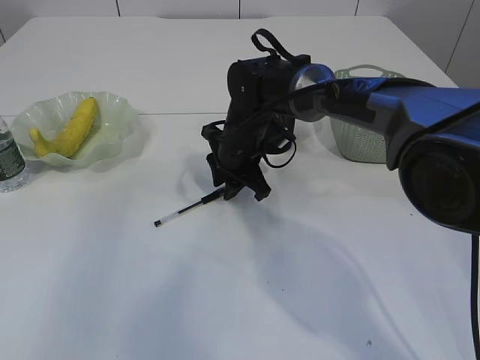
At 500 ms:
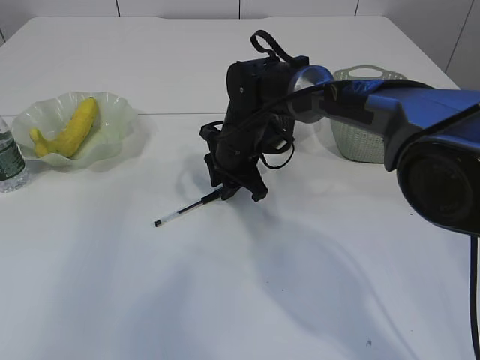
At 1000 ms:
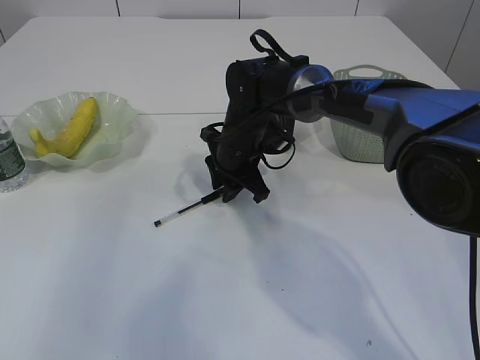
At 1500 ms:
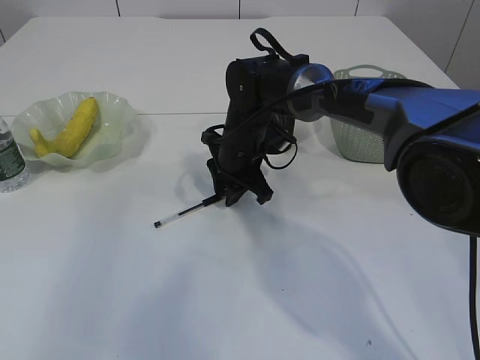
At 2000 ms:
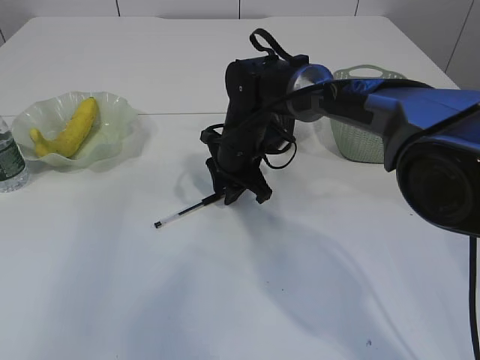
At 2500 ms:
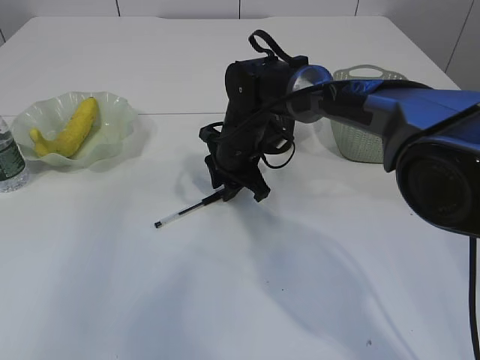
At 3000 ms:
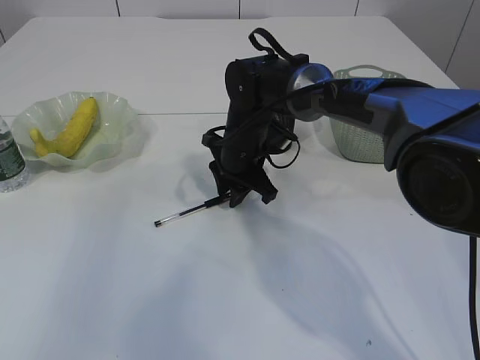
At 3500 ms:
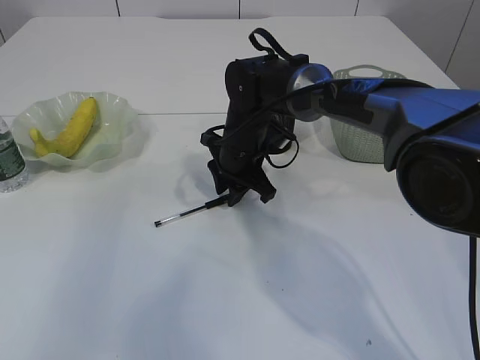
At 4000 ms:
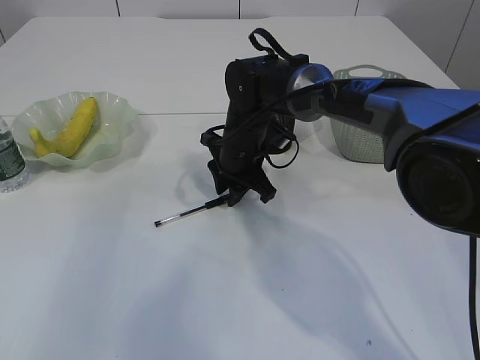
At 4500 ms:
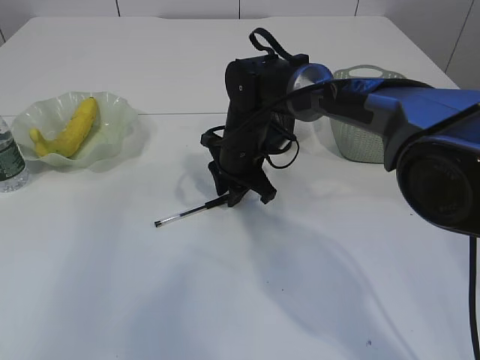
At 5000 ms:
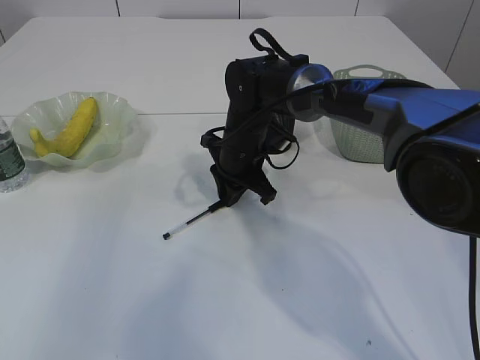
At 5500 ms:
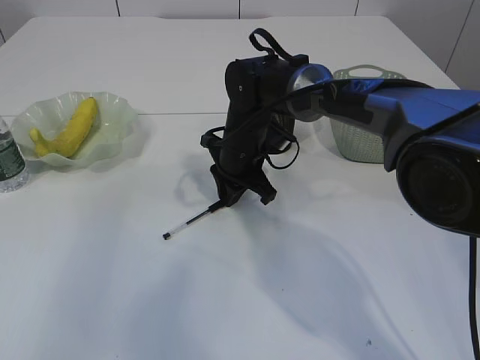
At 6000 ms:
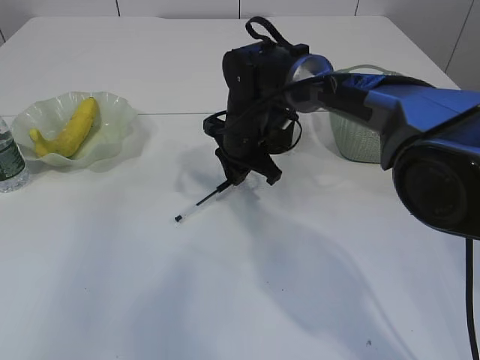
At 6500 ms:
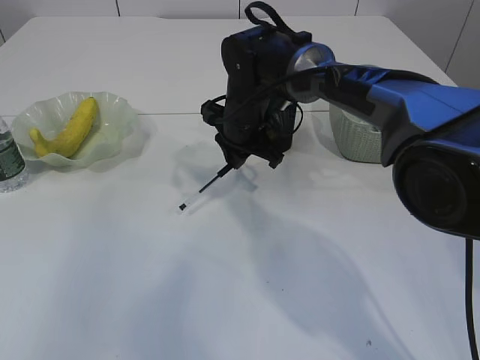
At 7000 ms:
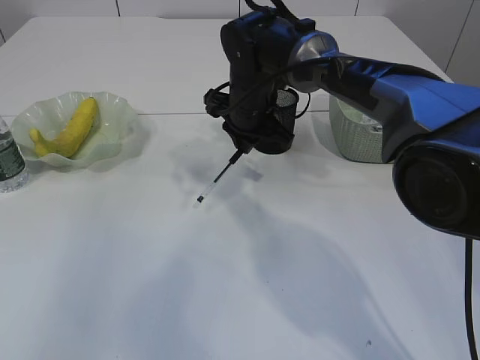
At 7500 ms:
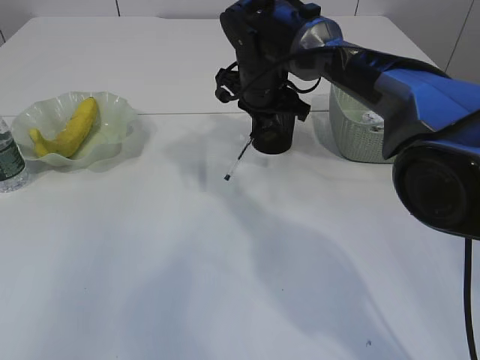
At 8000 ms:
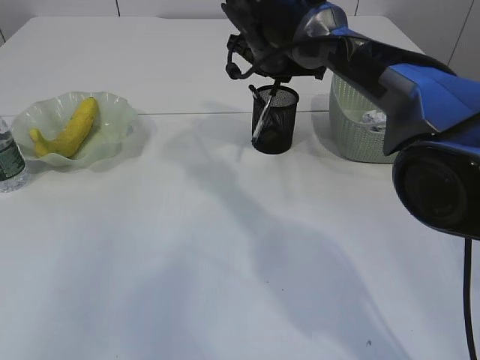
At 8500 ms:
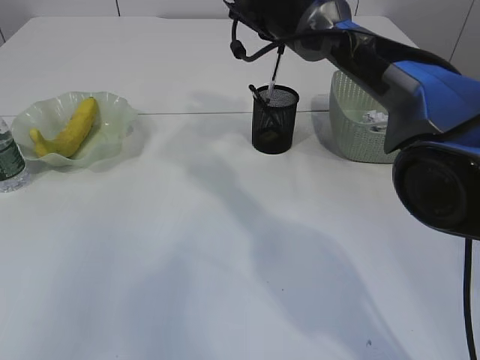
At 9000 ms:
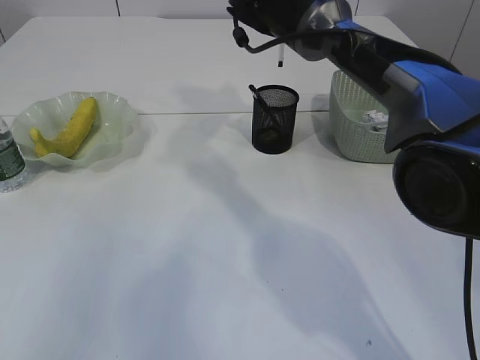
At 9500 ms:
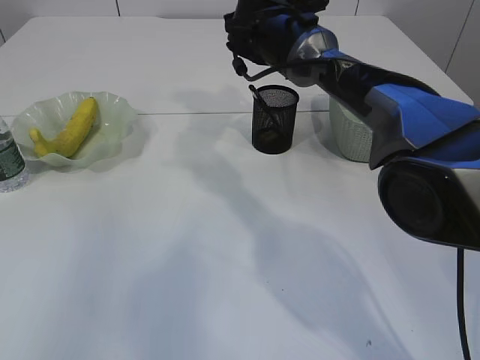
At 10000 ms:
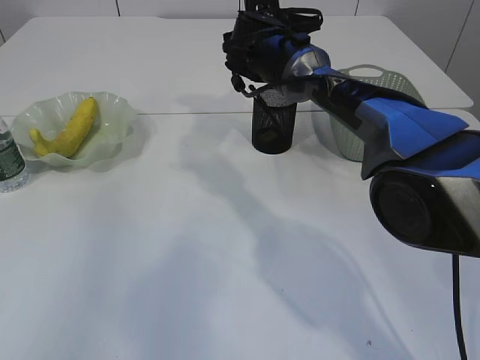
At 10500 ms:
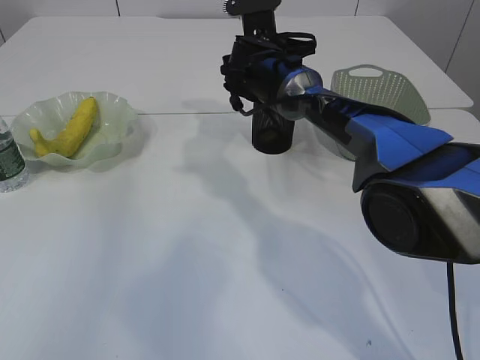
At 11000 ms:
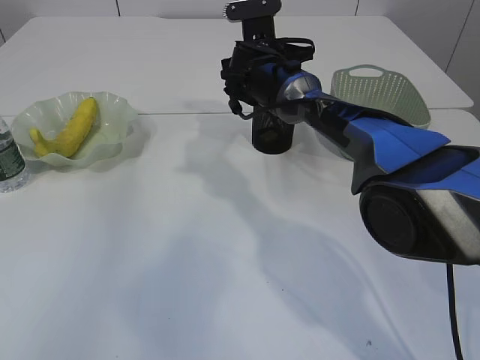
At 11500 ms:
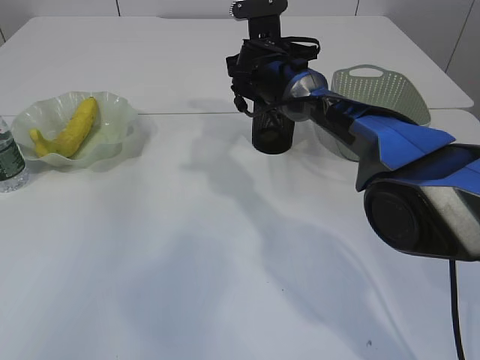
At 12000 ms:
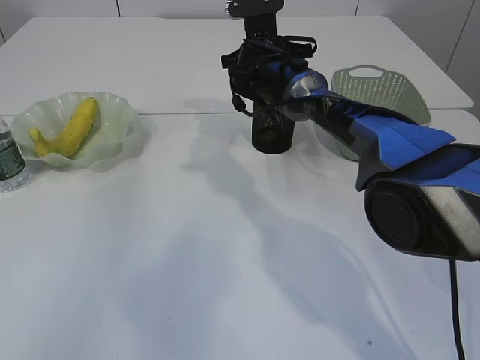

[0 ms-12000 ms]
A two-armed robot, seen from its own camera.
Step, 0 ms to 6500 ms: Pick up the pen with right arm.
0 ms to 2000 ms: Both grippers stay about where they are.
2000 ms to 4000 ms: The two grippers keep their place.
4000 ms to 6000 ms: The grippers move only a little.
6000 ms to 8000 ms: The right gripper moves upward, some 10 cm.
10000 ms to 12000 ms: The grippers move only a little.

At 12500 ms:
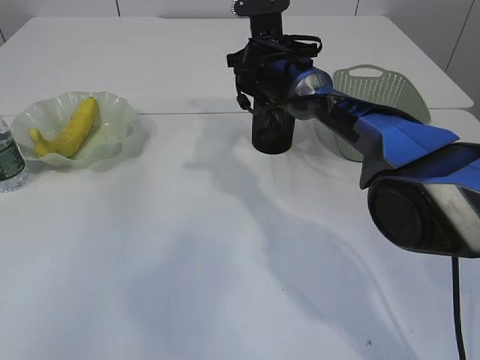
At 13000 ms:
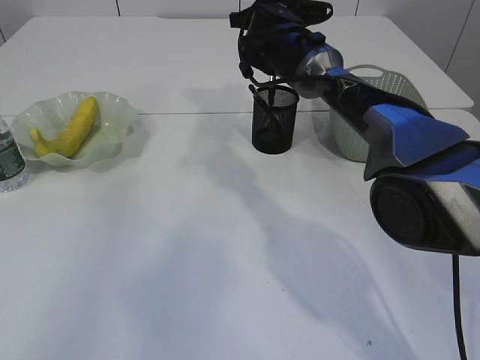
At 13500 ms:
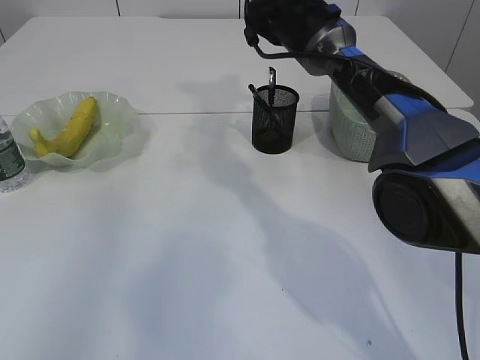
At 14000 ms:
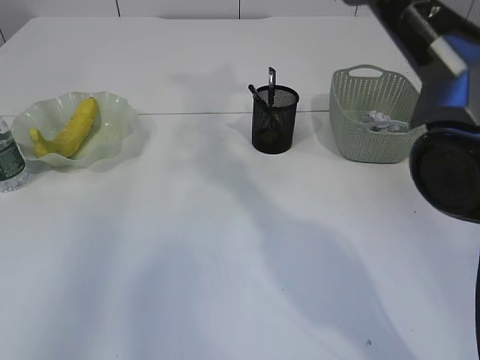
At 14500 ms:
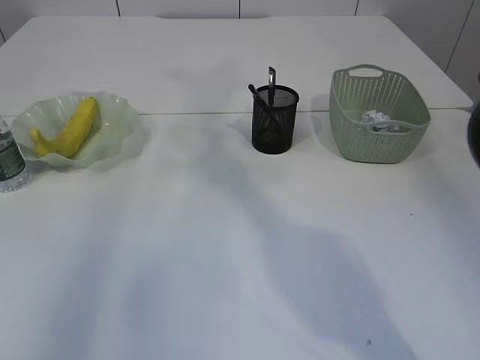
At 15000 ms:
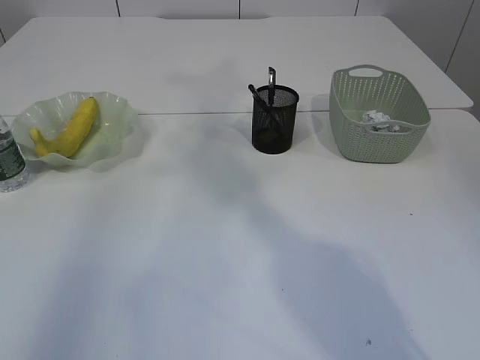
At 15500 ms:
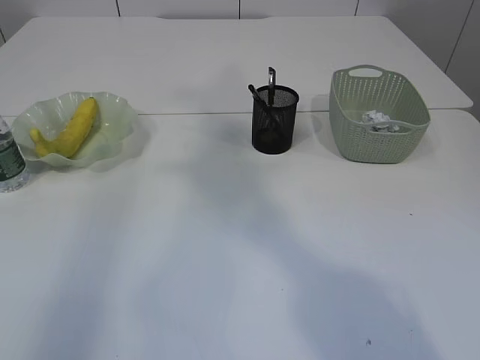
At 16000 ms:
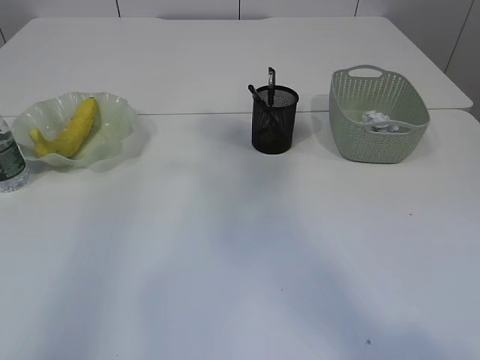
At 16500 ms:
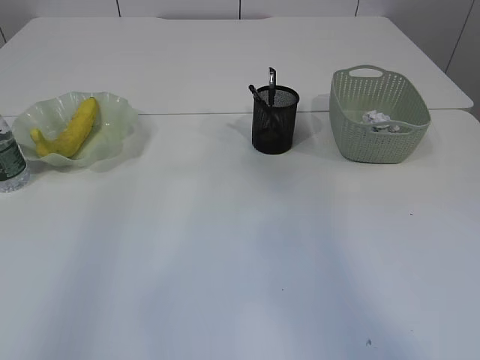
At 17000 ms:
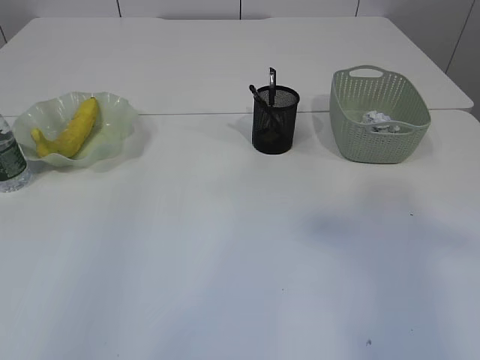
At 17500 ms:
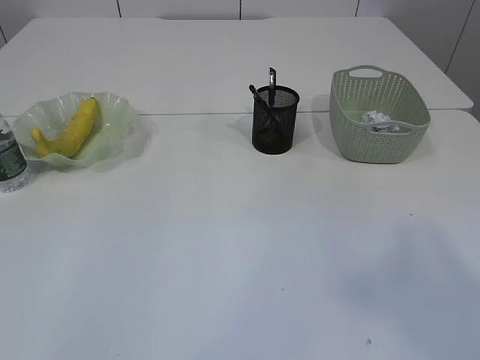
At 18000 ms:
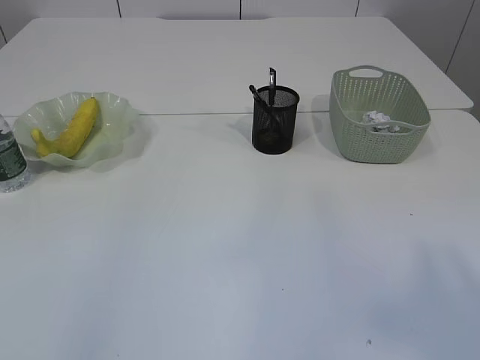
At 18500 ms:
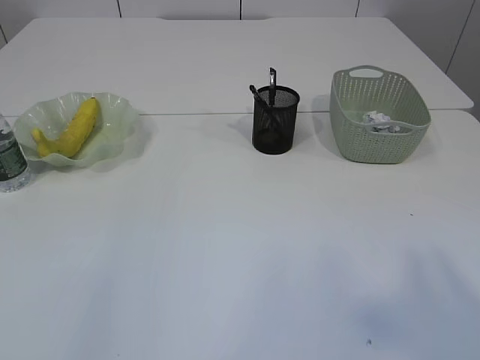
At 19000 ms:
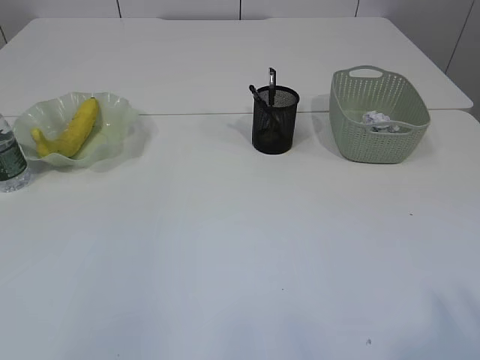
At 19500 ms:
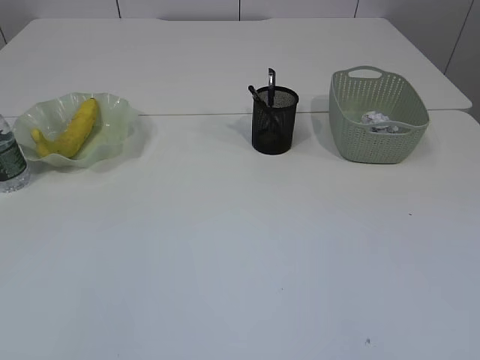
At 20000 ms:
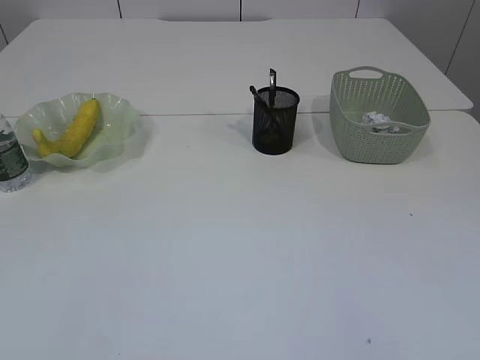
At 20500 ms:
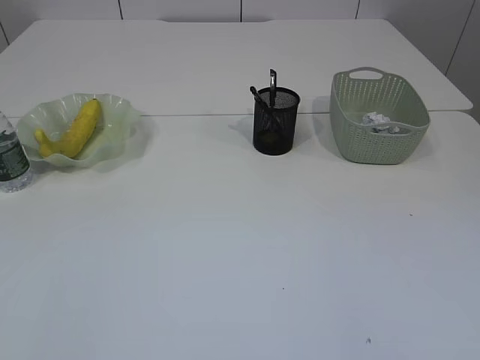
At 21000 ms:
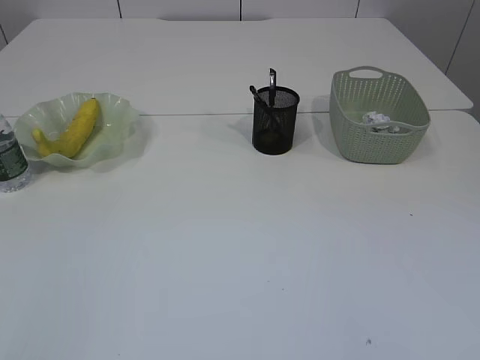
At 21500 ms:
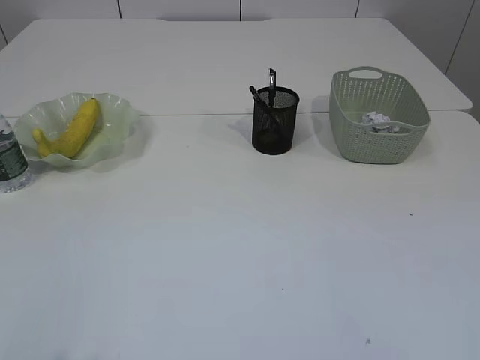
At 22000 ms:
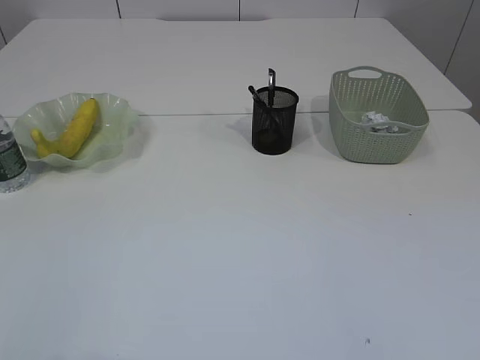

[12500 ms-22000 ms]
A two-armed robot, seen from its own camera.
12500 ms to 14500 ms: The left gripper closes, while the right gripper heads upward, covering some 30 cm.
14500 ms to 16500 ms: The right gripper heads backward, upward and to the right, covering roughly 40 cm.
16500 ms to 18000 ms: The right gripper goes roughly 20 cm downward and backward; the left gripper travels backward and upward by about 15 cm.

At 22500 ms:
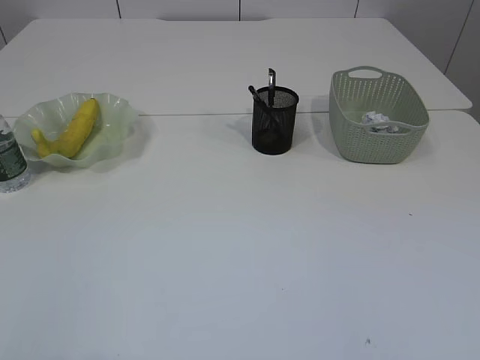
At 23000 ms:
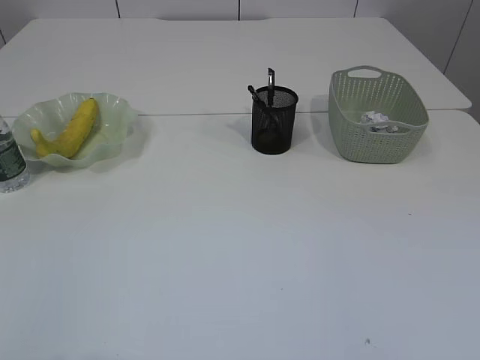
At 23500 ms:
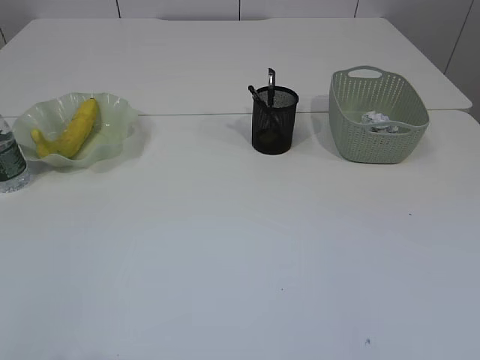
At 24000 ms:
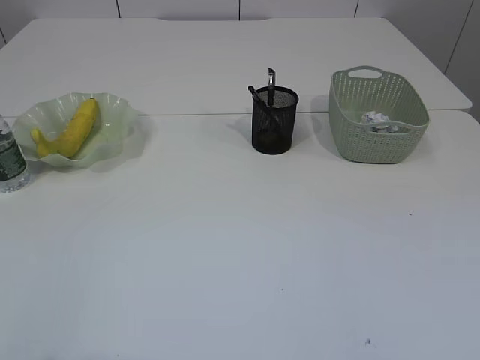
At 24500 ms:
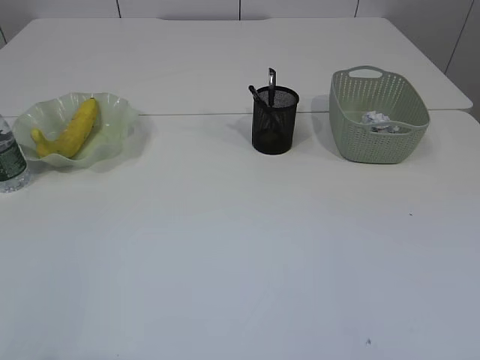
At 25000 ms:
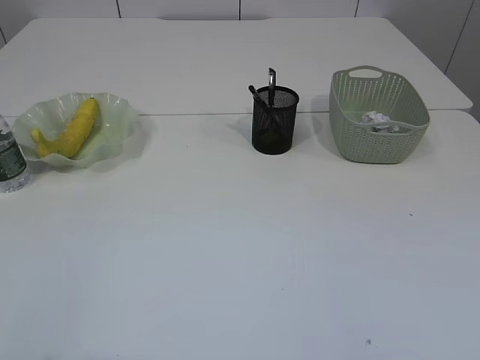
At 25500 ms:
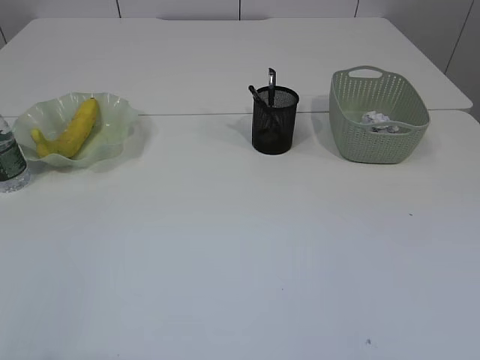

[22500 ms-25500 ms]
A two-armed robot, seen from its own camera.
24000 ms to 25500 ms: Both grippers stay about where they are.
